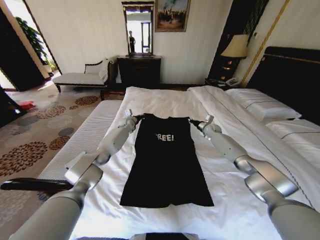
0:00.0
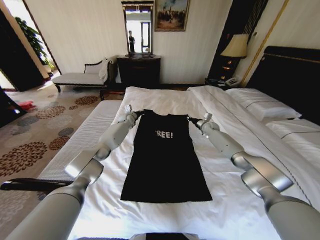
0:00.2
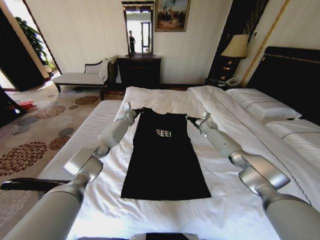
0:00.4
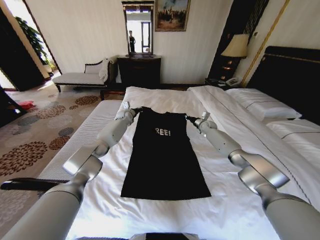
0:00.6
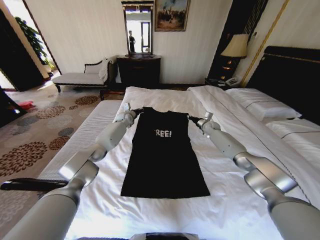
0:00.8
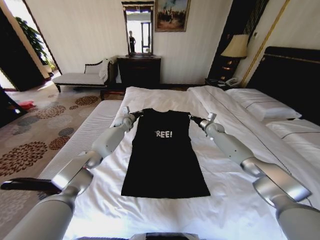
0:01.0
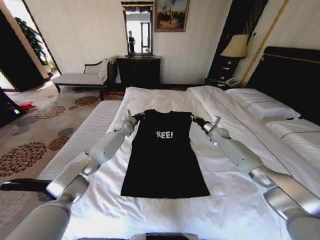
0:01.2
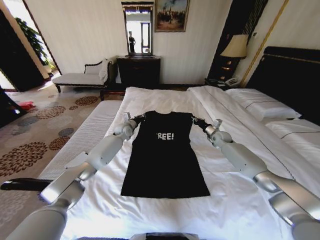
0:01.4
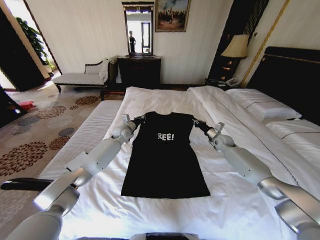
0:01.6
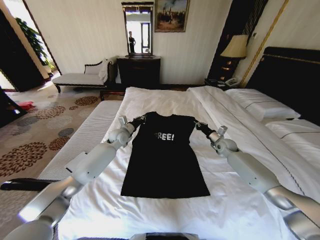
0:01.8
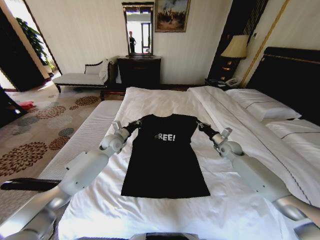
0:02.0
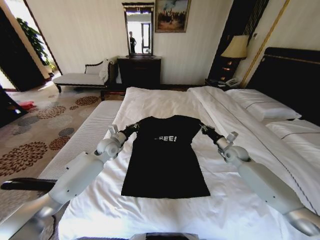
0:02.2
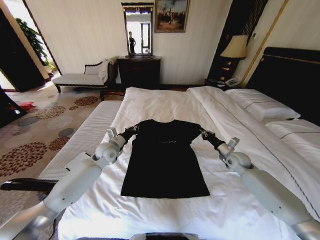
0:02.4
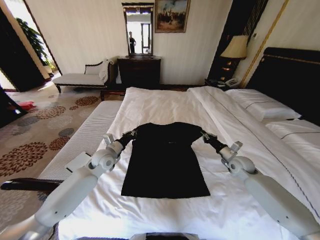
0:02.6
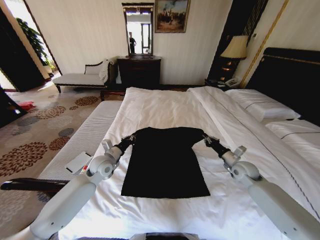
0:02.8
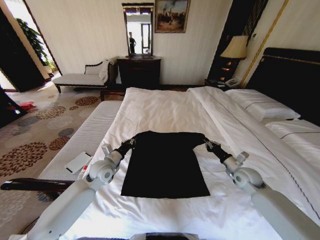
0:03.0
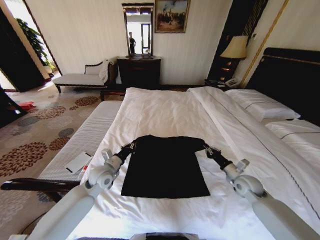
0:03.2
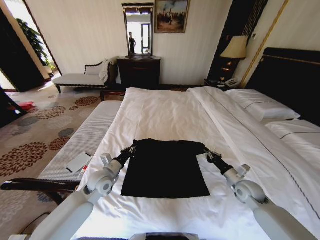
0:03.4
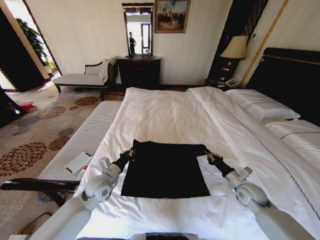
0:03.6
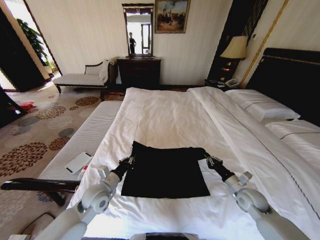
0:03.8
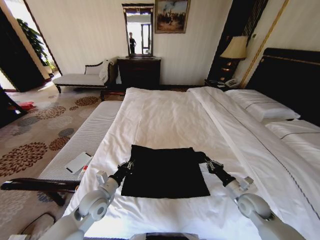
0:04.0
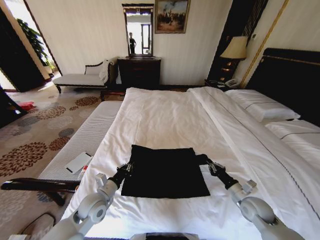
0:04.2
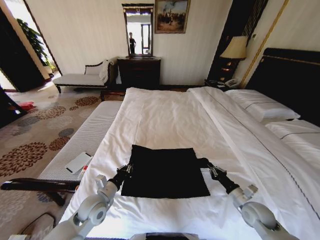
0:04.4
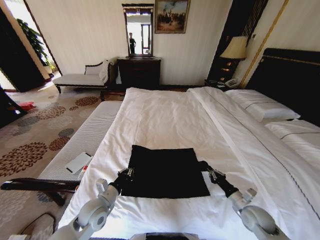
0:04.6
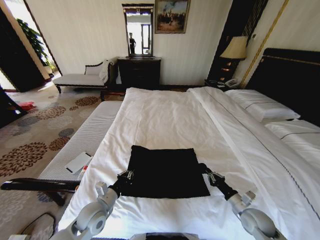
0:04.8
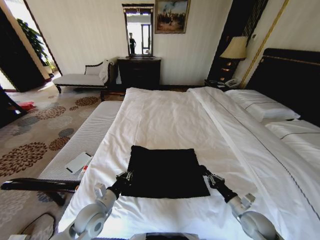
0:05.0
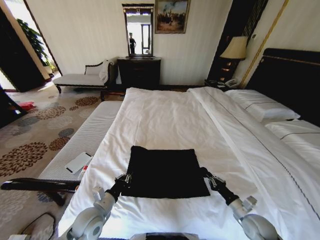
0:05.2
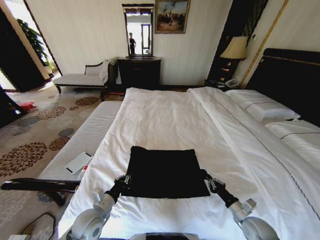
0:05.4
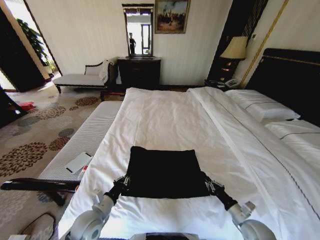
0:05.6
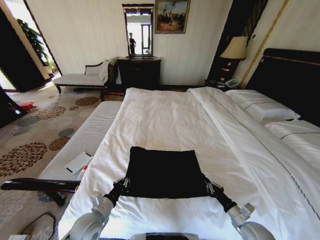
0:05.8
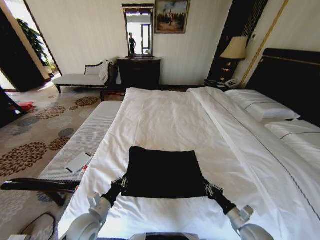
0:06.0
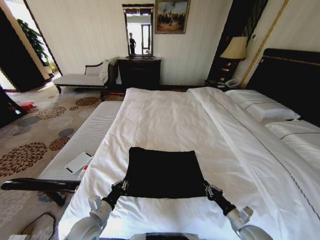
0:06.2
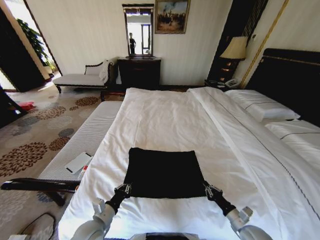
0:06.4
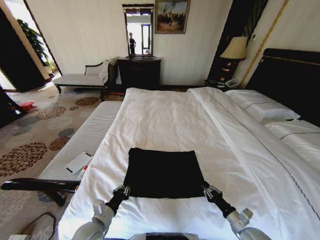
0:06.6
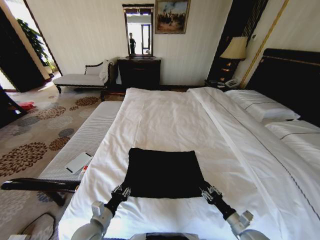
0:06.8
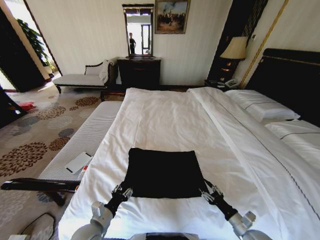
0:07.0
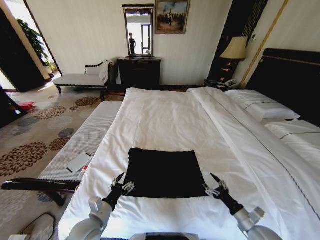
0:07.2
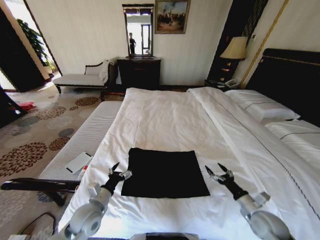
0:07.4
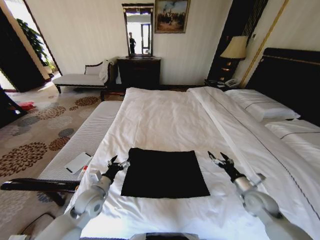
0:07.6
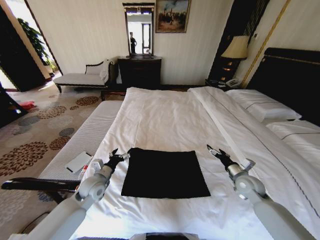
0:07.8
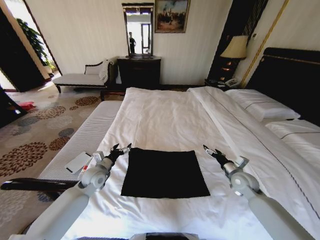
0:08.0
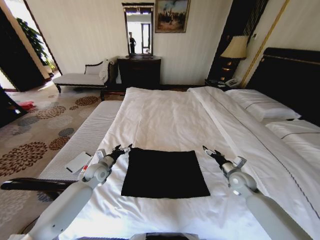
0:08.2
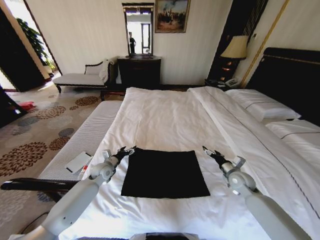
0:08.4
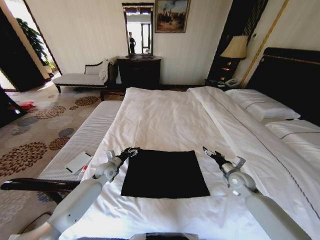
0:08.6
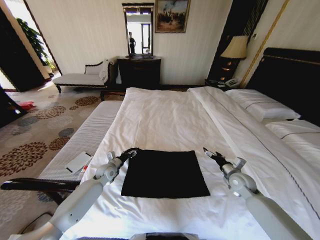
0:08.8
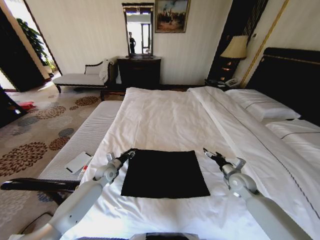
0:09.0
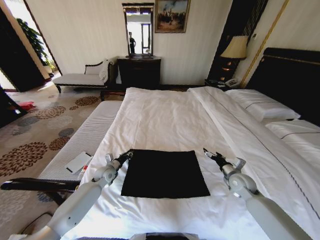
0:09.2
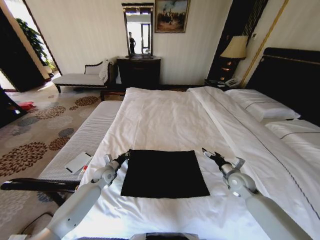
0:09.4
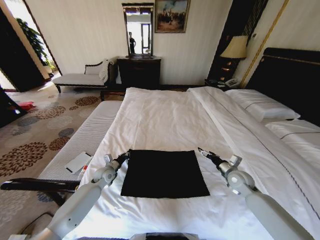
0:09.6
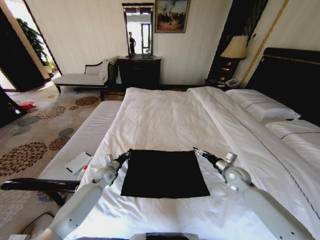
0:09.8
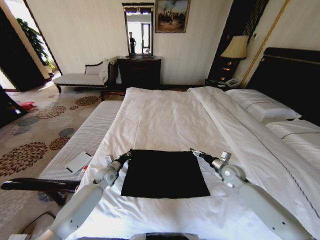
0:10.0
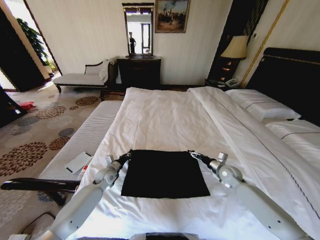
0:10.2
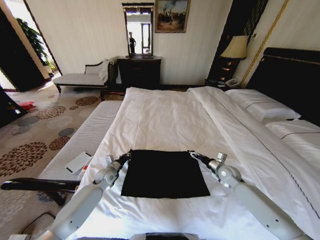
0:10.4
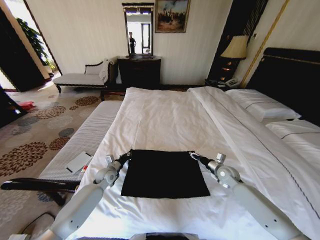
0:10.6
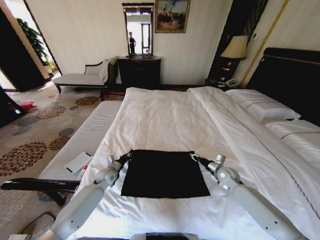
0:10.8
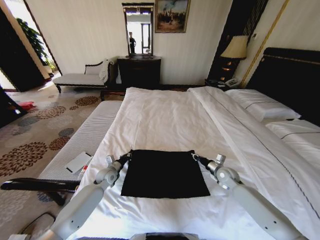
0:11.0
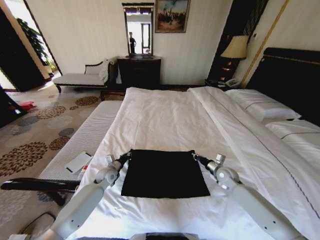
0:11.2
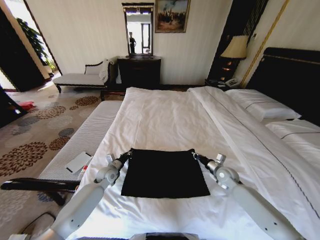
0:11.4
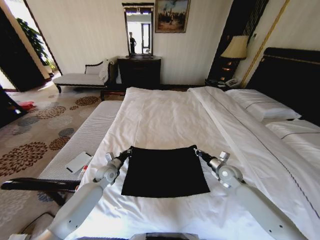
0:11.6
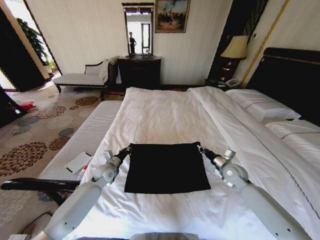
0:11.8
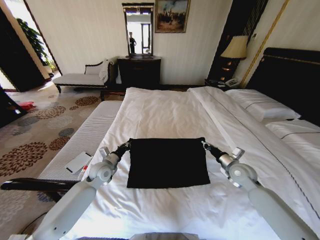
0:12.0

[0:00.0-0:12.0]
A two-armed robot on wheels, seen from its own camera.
Task of the whole recording: Fold the clothes on the bed.
0:00.0 to 0:01.6: The two grippers go about 10 cm backward.
0:01.6 to 0:03.0: Both grippers move backward, about 20 cm.
0:03.0 to 0:04.4: The left gripper is displaced backward by some 10 cm, while the right gripper moves backward and downward, approximately 15 cm.
0:04.4 to 0:06.0: Both grippers travel together backward, roughly 5 cm.
0:06.0 to 0:07.6: The right gripper goes approximately 15 cm forward and upward, and opens; the left gripper heads forward, covering roughly 10 cm, and opens its fingers.
0:07.6 to 0:09.0: The left gripper goes some 15 cm forward and downward, and closes its fingers. Meanwhile the right gripper goes roughly 10 cm forward.
0:09.0 to 0:10.4: The left gripper closes, while the right gripper heads forward, covering some 5 cm.
0:10.4 to 0:12.0: The two grippers go about 10 cm upward. The right gripper closes its fingers.

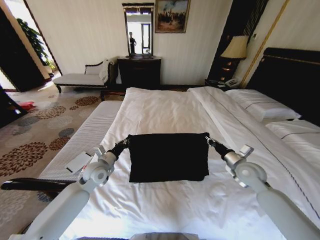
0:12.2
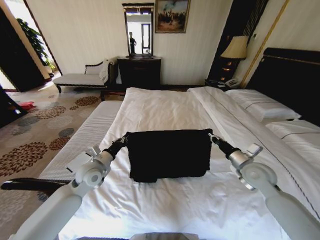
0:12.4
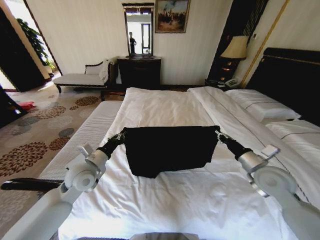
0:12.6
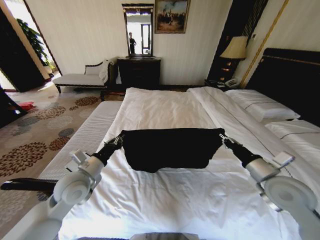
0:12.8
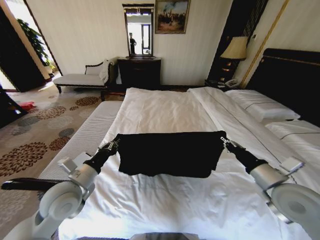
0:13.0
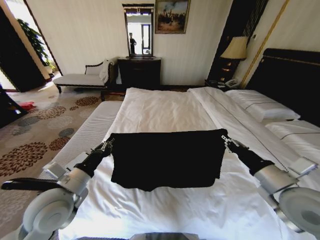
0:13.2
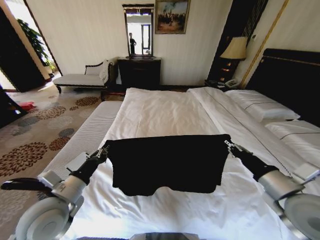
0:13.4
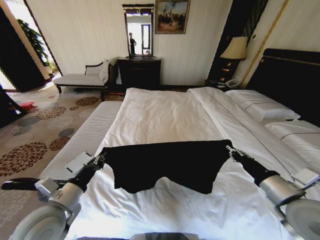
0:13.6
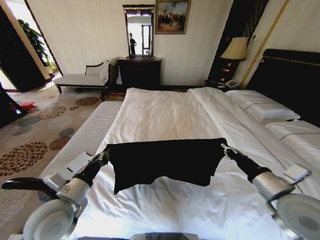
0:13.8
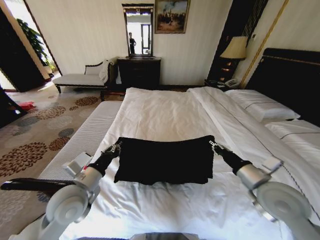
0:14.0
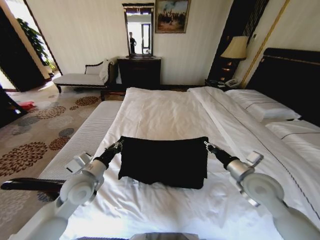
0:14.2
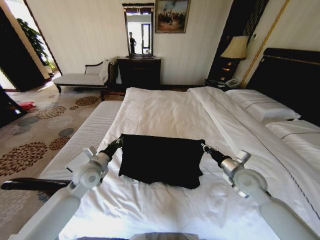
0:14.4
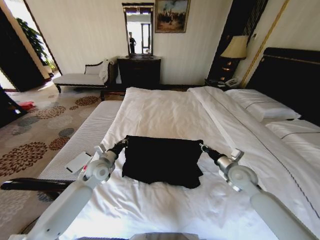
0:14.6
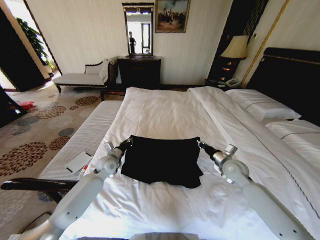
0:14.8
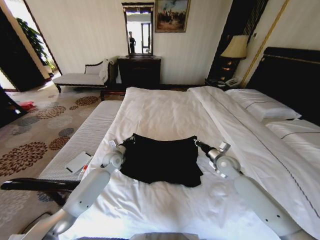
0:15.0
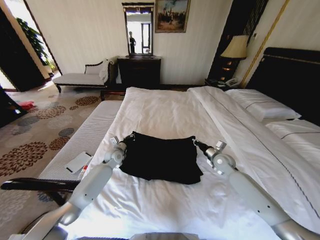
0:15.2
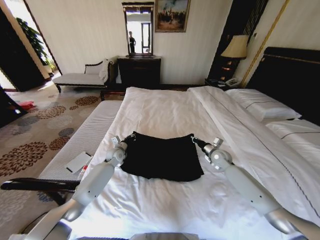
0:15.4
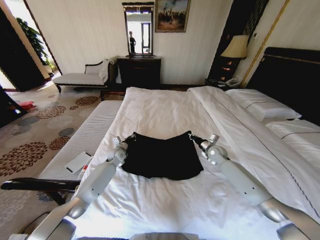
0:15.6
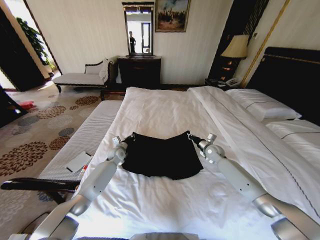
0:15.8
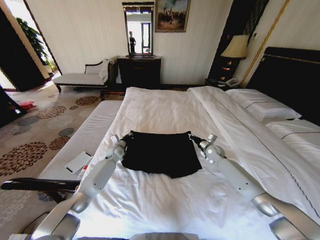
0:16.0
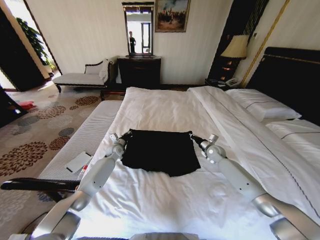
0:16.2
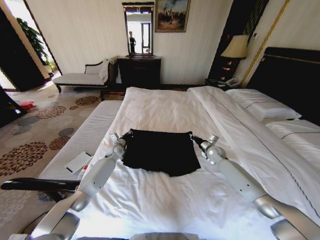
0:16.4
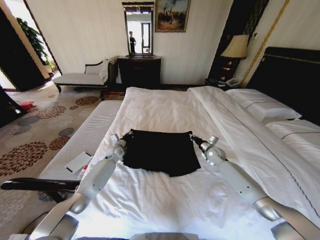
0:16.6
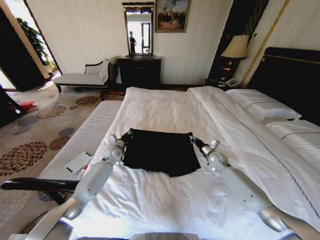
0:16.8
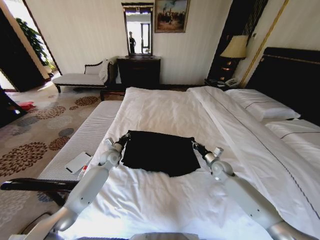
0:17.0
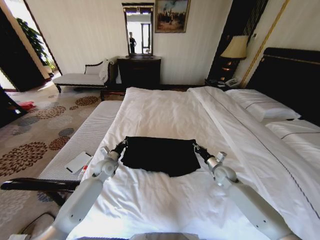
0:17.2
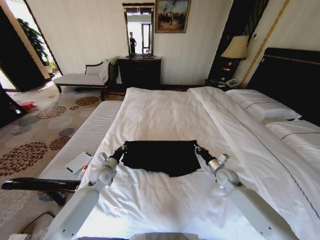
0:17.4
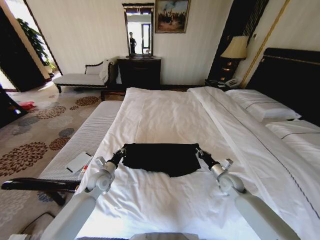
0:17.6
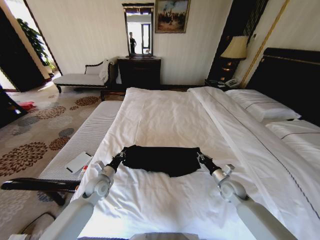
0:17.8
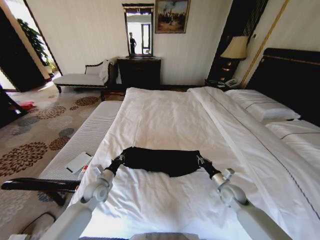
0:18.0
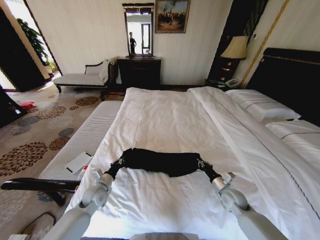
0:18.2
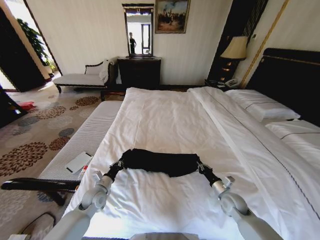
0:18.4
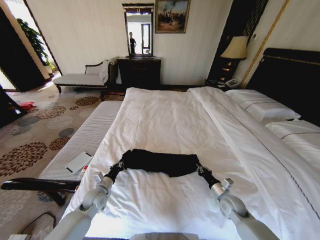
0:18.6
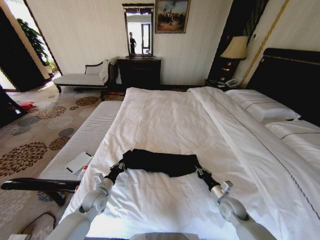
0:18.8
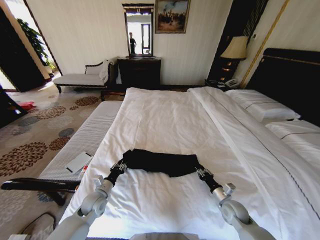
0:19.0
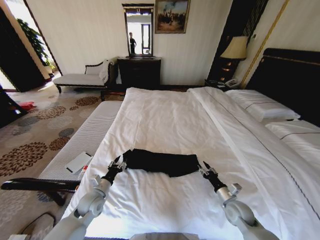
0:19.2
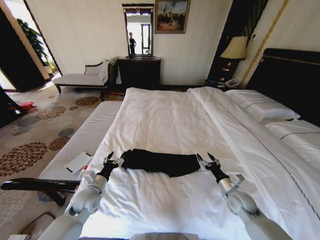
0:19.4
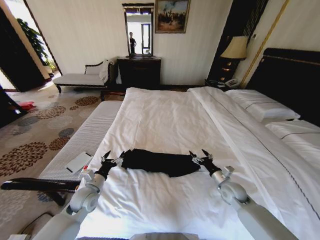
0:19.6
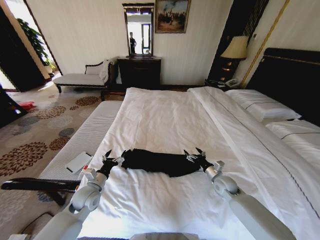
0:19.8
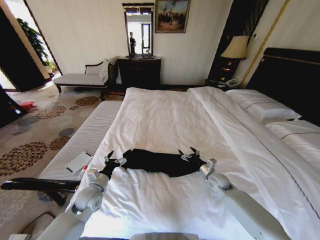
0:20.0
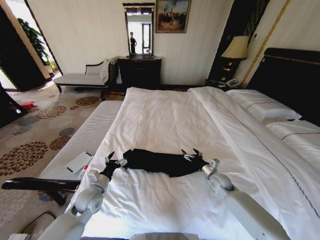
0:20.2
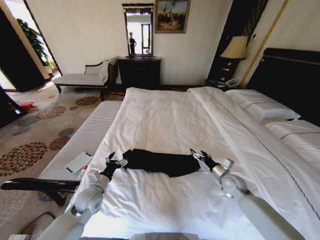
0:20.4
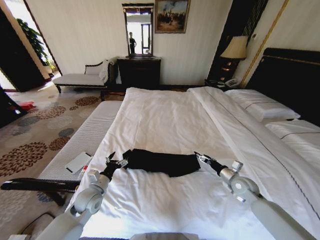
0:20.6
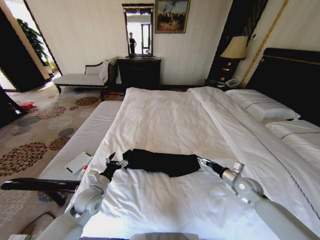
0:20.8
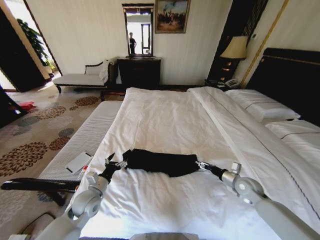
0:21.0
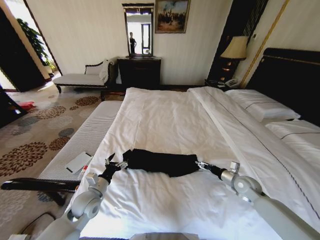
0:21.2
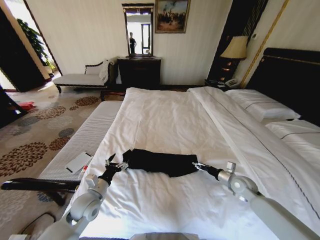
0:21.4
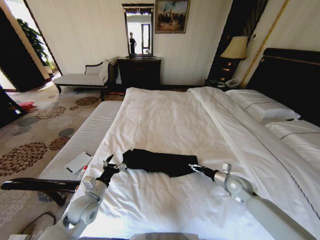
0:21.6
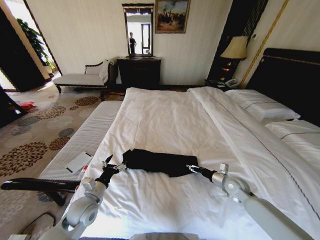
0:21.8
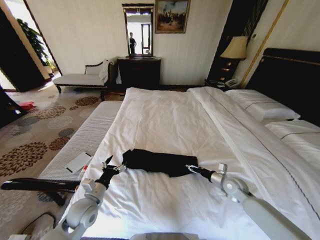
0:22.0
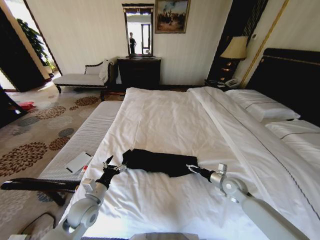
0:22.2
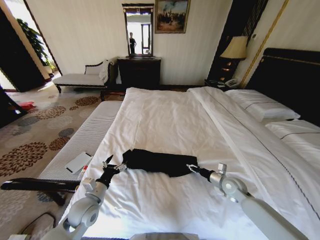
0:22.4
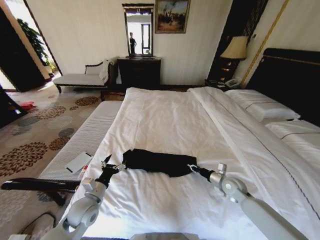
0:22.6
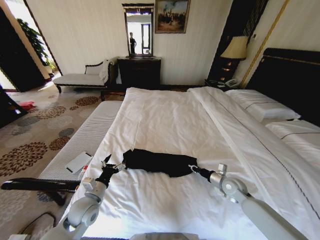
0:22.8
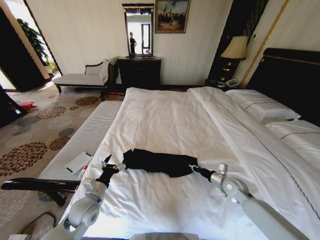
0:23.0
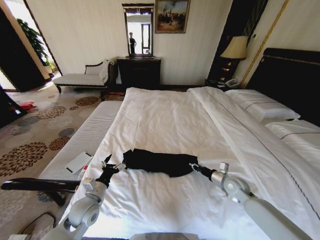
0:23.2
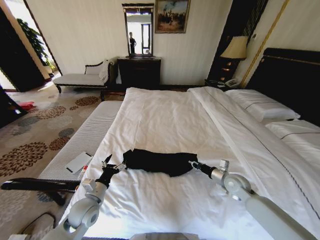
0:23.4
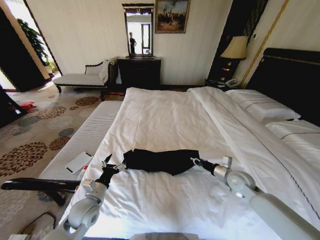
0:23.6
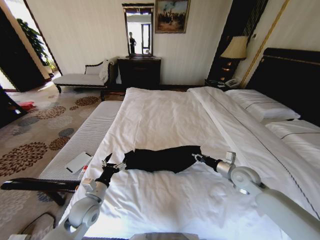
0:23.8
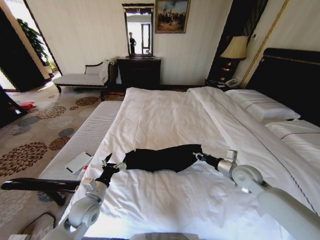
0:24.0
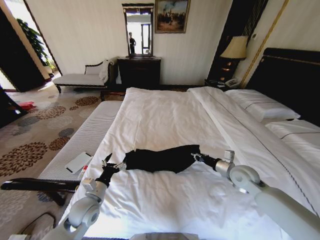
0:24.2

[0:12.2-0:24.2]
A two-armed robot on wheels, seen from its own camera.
Task of the whole recording: Fold the clothes on the bed.
0:12.2 to 0:13.8: Both grippers move backward and upward, approximately 20 cm.
0:13.8 to 0:15.2: The two grippers go roughly 30 cm forward and downward.
0:15.2 to 0:16.6: The right gripper shifts some 5 cm forward.
0:16.6 to 0:18.2: The two grippers go roughly 20 cm backward.
0:18.2 to 0:19.8: The left gripper opens its fingers. Meanwhile the right gripper shifts by some 5 cm, and opens its fingers.
0:19.8 to 0:21.2: The right gripper heads to the right, covering roughly 10 cm.
0:21.2 to 0:22.6: The right gripper heads to the left, covering roughly 5 cm, and closes up.
0:22.6 to 0:24.2: The right gripper travels upward by approximately 10 cm.
